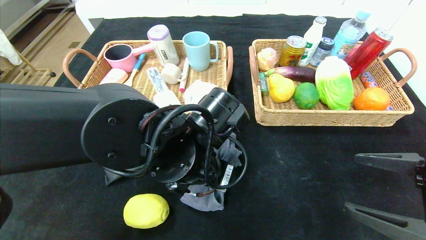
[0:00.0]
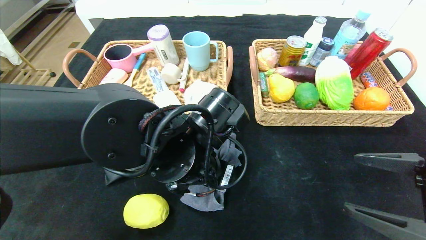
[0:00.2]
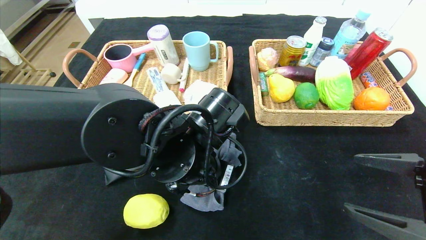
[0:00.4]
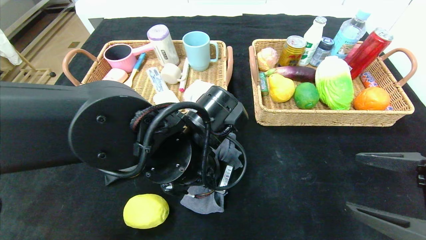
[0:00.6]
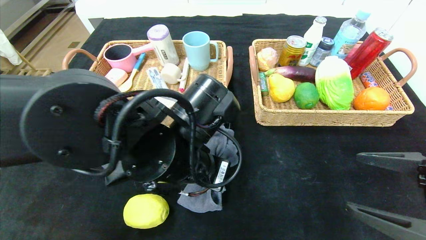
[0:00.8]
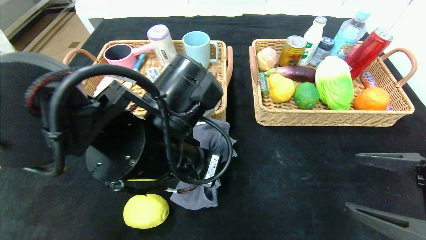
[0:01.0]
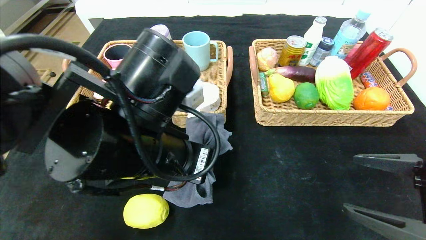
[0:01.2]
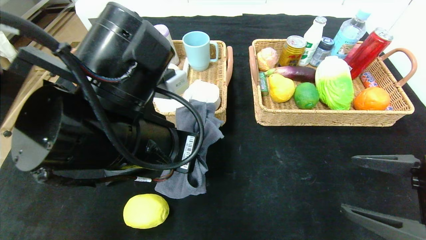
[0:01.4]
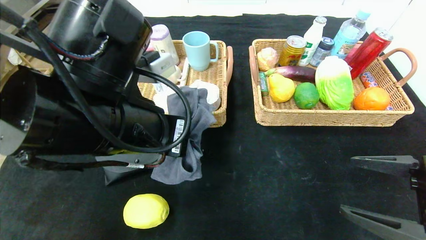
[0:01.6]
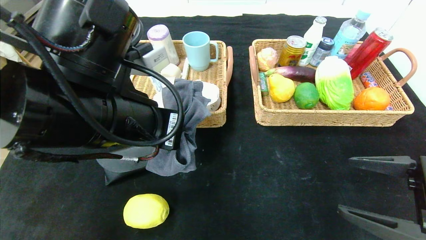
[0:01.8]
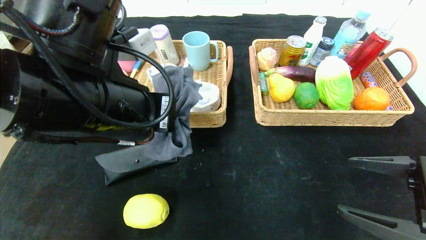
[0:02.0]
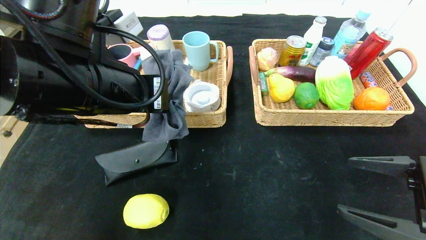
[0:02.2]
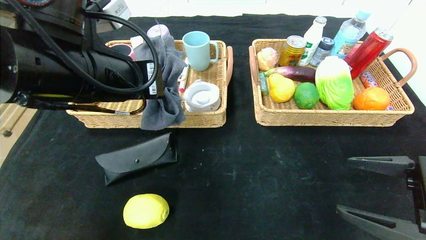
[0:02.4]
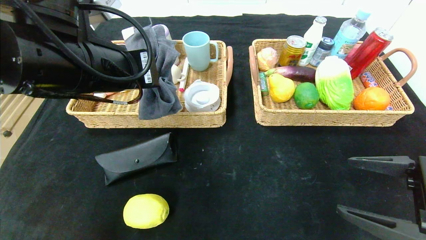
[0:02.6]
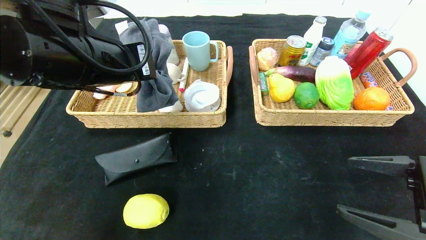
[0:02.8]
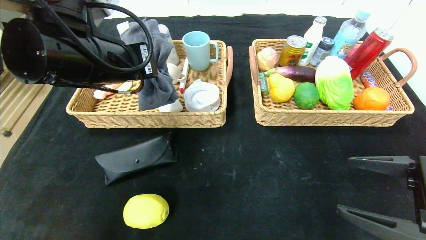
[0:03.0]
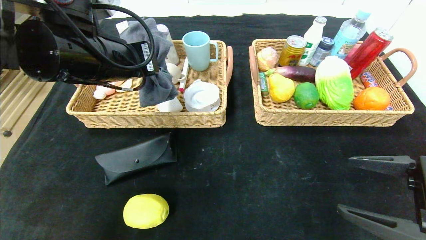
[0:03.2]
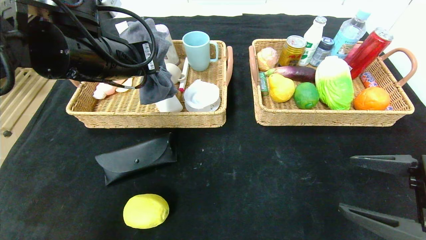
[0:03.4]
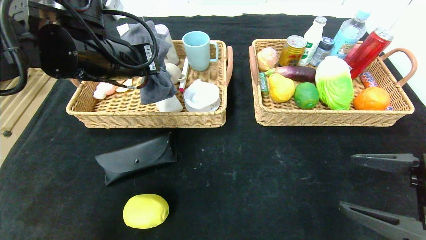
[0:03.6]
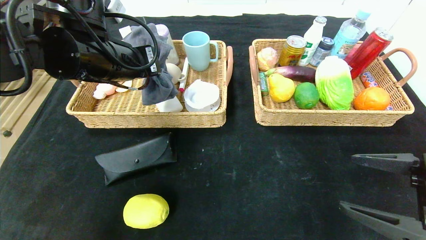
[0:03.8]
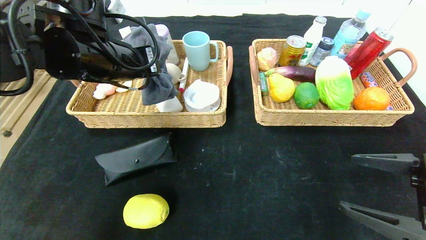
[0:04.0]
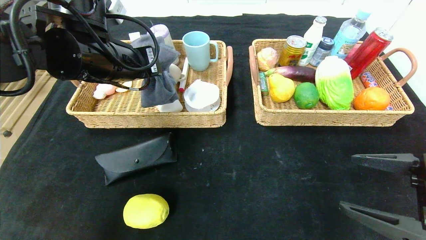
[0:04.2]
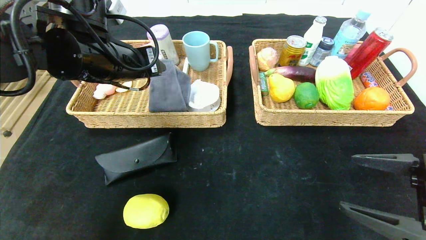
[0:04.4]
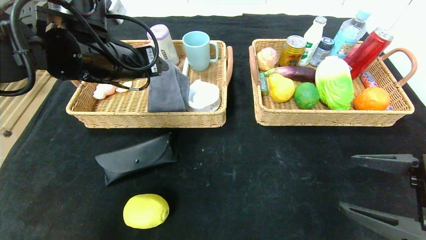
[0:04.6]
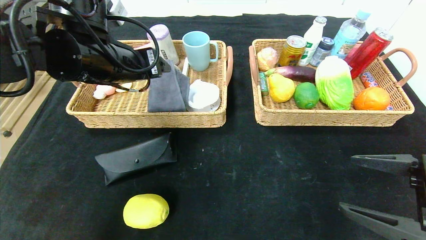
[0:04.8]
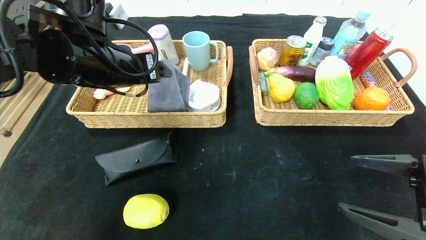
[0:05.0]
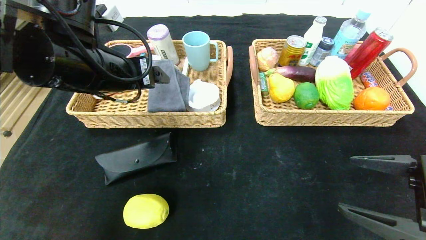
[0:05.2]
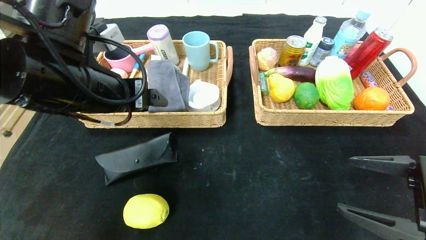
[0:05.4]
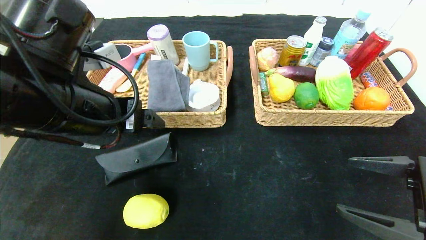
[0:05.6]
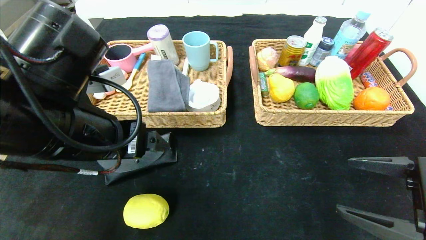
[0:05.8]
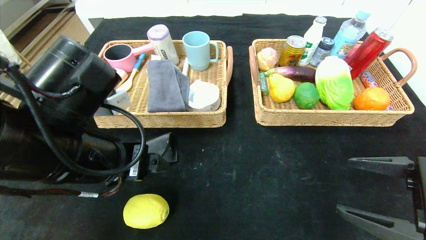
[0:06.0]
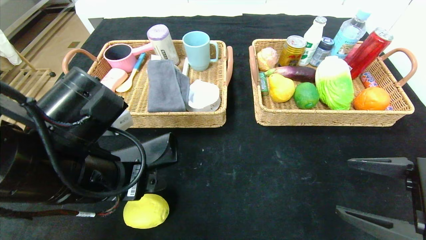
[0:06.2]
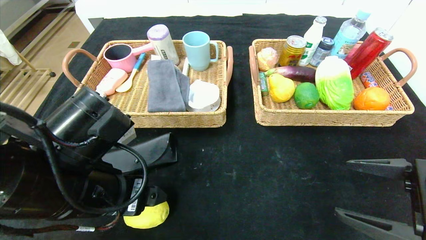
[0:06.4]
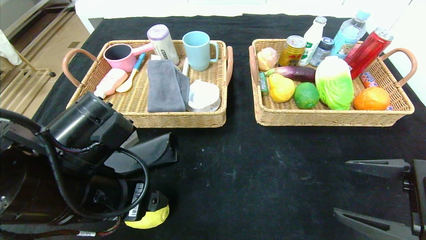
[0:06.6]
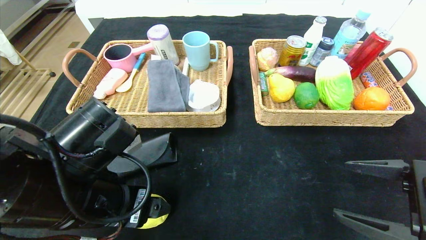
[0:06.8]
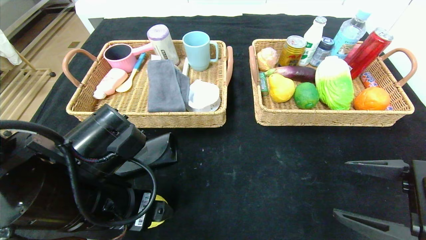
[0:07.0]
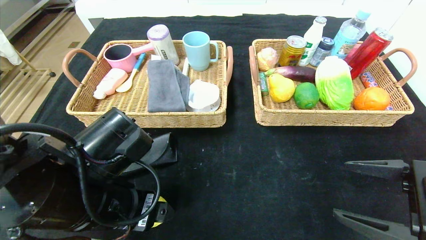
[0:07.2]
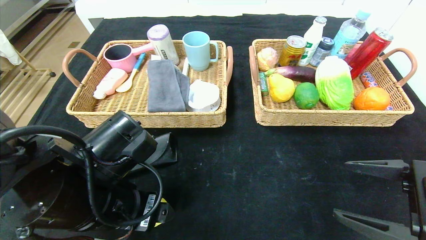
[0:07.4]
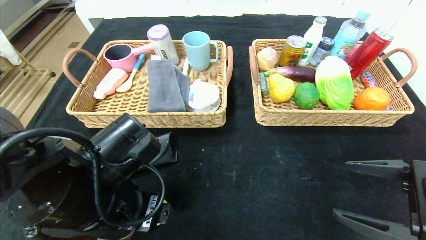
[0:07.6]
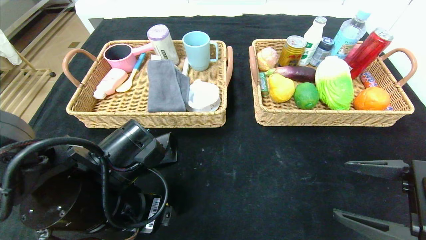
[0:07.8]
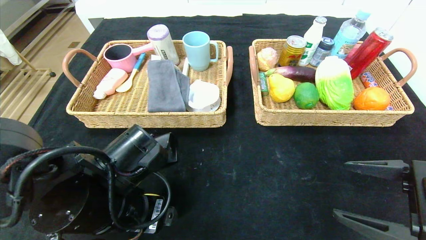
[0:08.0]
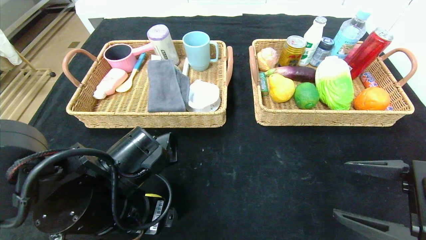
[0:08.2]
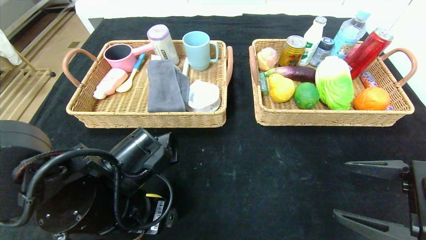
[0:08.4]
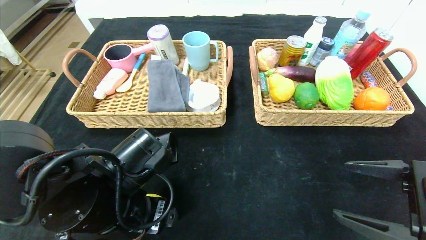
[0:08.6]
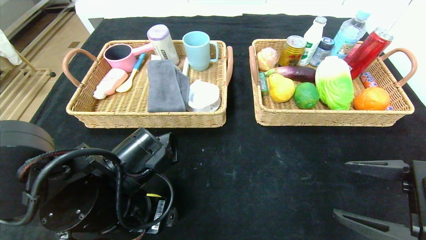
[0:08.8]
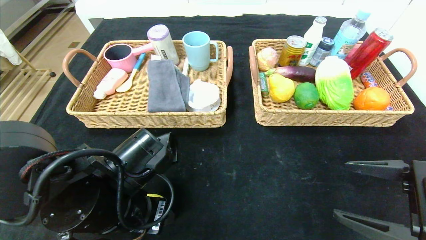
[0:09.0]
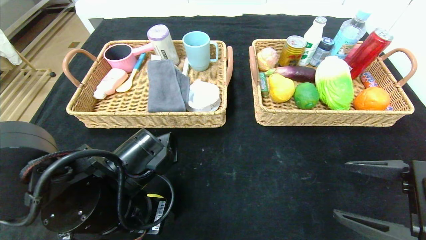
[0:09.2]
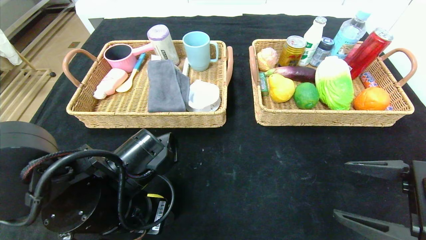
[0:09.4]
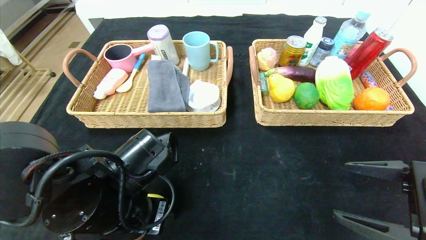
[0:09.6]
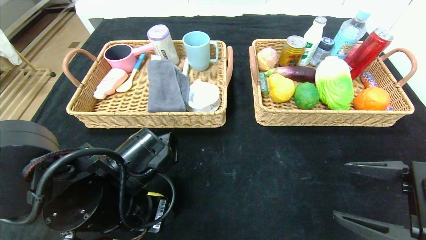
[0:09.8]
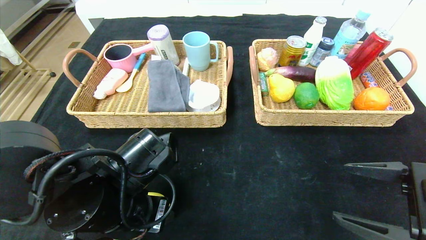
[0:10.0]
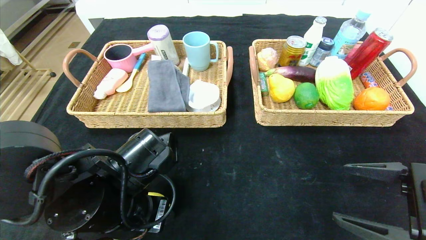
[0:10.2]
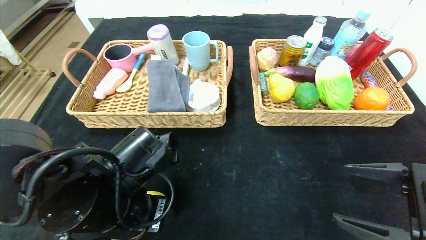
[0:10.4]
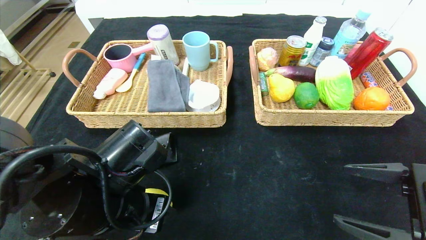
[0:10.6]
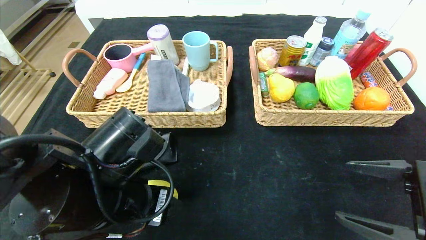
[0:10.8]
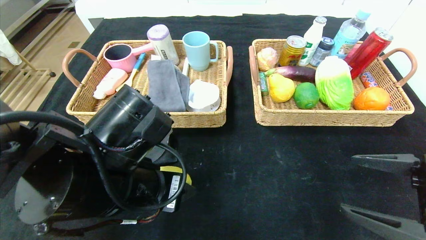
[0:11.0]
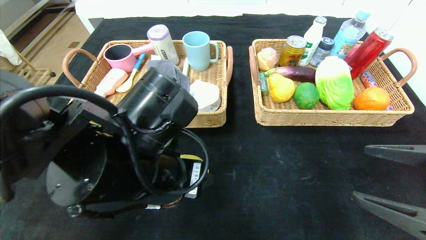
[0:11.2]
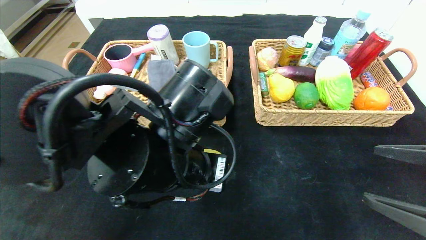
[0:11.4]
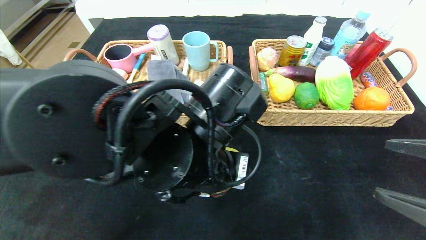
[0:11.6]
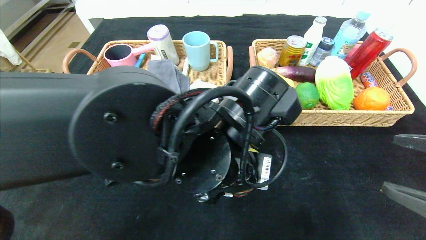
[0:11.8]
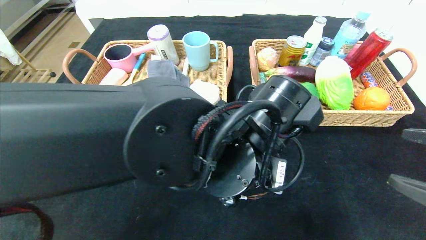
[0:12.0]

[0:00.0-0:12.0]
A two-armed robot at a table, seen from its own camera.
Step, 0:00.0 to 0:05.6: Pick up the gray towel and put it in the left basket.
0:00.0 to 0:01.6: The left gripper moves upward and to the left, about 10 cm.
0:01.6 to 0:03.0: The left gripper goes some 10 cm forward and to the left.
0:03.0 to 0:04.4: The left gripper opens its fingers.
0:04.4 to 0:06.0: The left gripper shifts roughly 15 cm backward and downward, and opens up.
0:06.0 to 0:07.6: The left gripper is displaced downward by roughly 5 cm.
0:07.6 to 0:09.0: The grippers move only a little.
0:09.0 to 0:10.4: Neither gripper changes place.
0:10.4 to 0:12.0: The right gripper changes place by approximately 5 cm, while the left gripper travels to the right by about 15 cm.

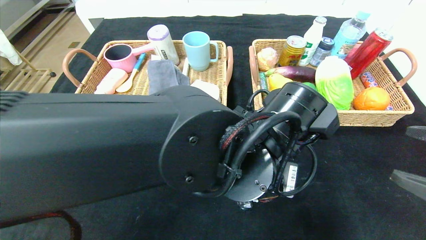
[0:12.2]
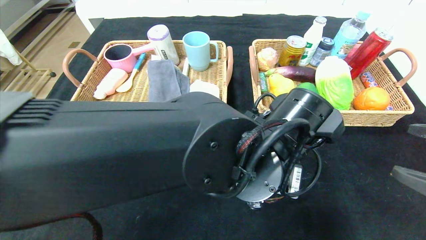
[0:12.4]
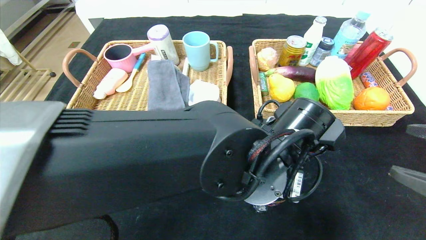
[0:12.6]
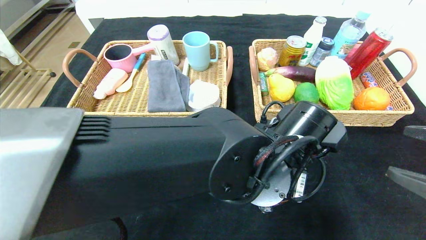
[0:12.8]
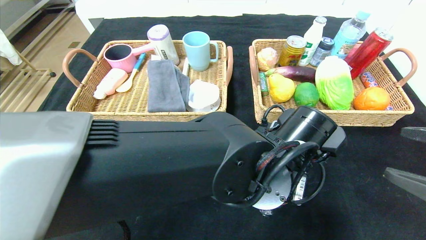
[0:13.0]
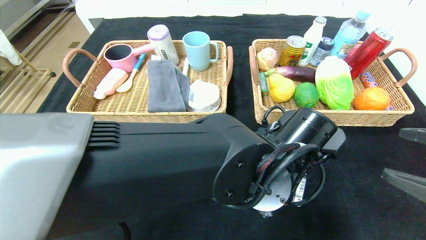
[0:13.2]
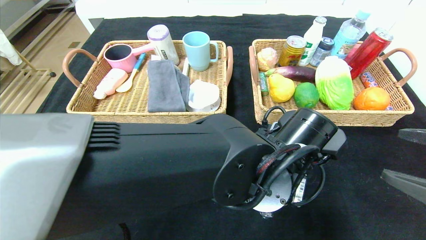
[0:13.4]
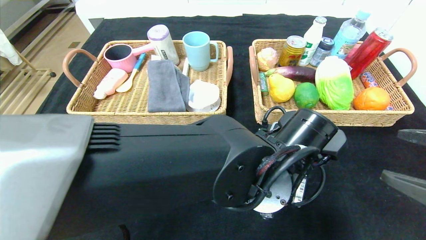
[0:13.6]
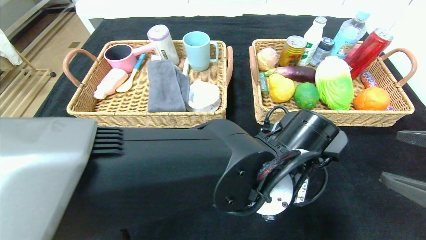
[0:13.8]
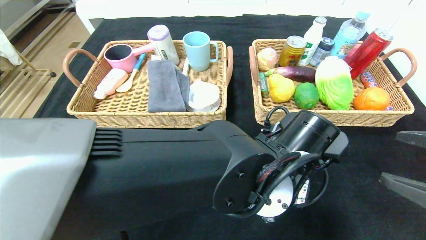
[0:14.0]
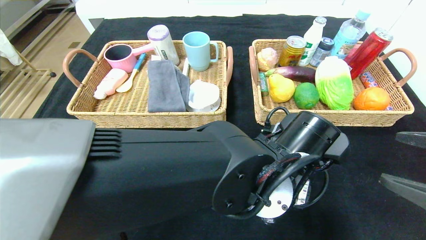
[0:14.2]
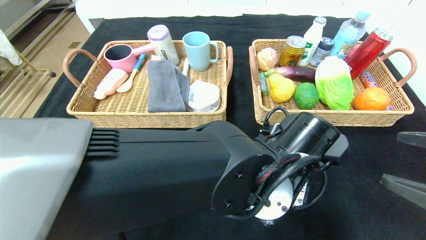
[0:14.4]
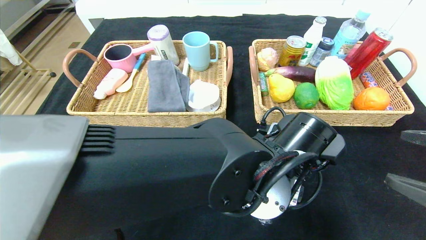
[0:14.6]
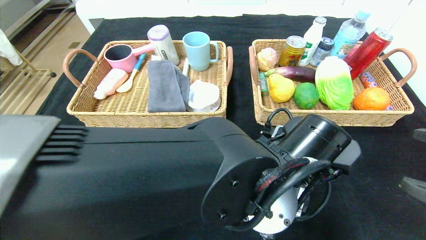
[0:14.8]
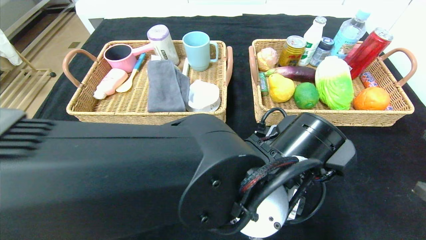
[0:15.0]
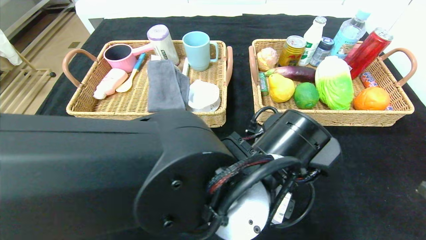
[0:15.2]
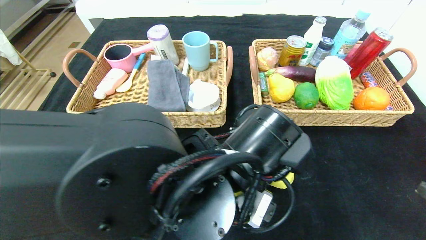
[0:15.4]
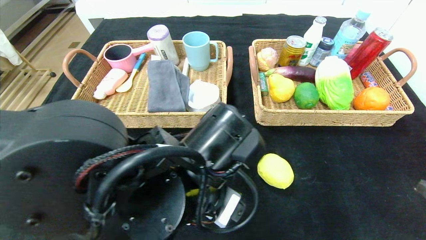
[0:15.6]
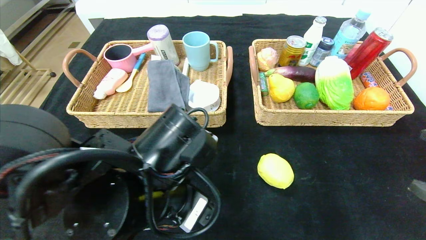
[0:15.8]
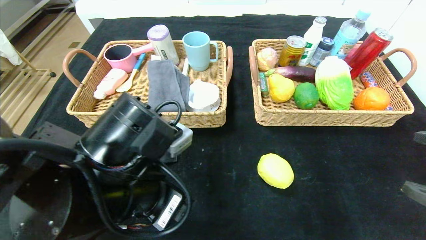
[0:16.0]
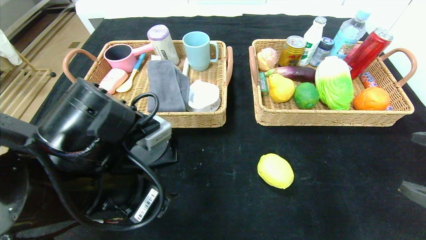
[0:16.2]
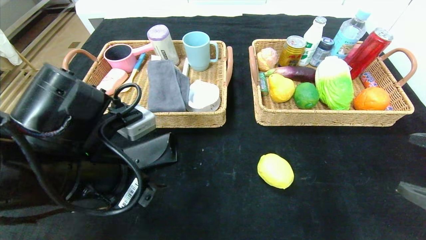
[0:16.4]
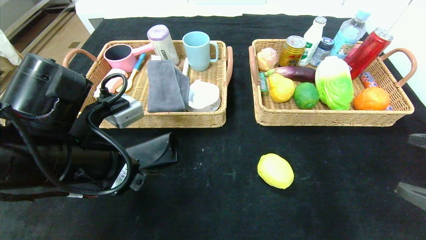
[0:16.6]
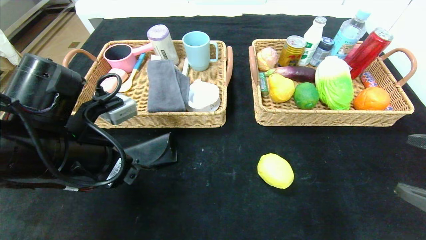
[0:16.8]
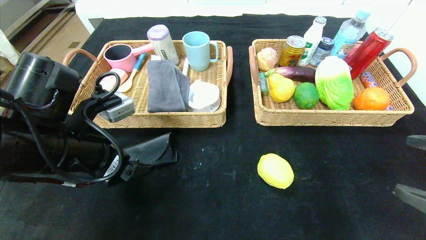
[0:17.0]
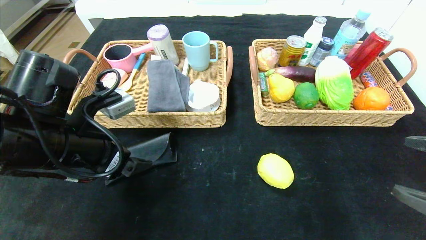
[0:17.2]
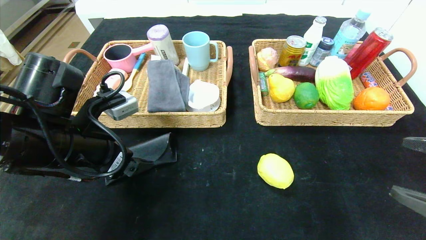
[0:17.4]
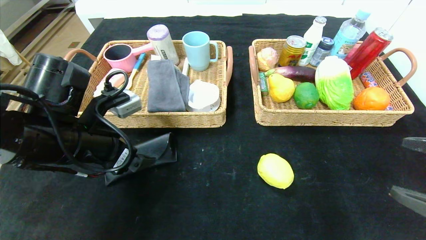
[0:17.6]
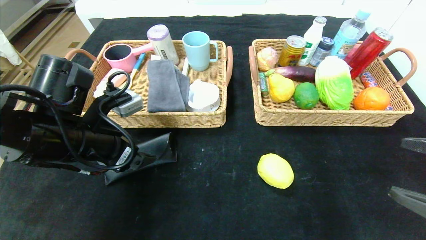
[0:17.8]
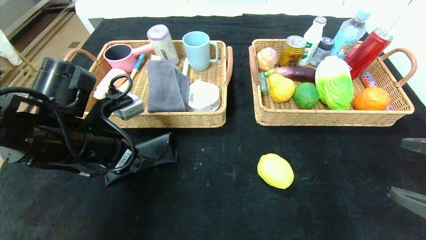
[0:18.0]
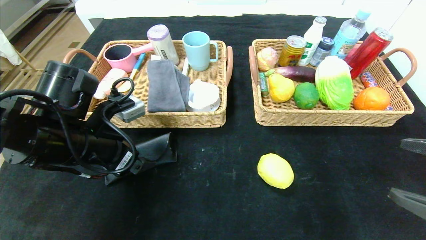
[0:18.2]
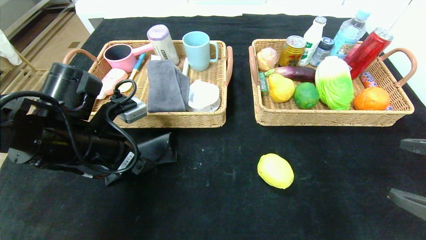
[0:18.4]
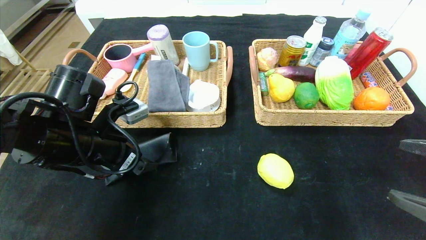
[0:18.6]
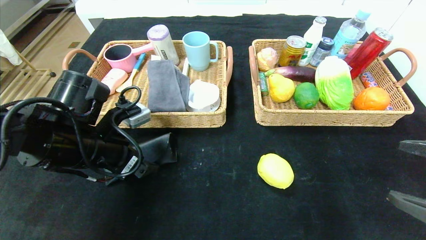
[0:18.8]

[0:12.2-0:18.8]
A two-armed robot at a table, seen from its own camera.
Step, 0:12.2 to 0:16.4: Place the lemon and put it in the center of the table.
0:13.8 to 0:15.4: The left gripper goes approximately 5 cm to the left.
0:15.4 to 0:17.2: The left gripper shifts roughly 20 cm to the left.
0:17.2 to 0:18.8: The grippers make only small movements.
